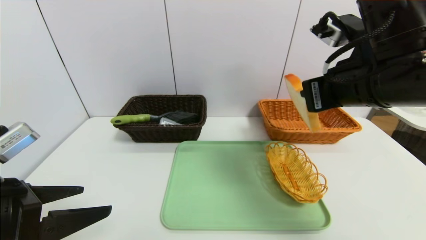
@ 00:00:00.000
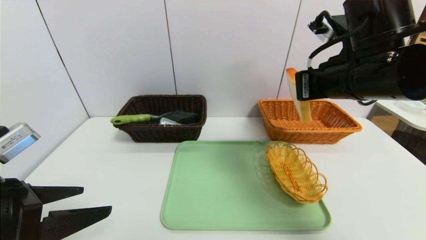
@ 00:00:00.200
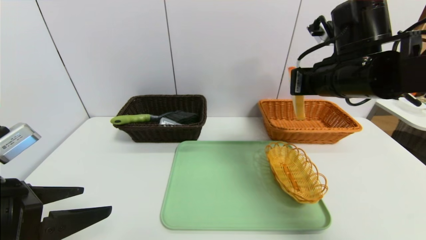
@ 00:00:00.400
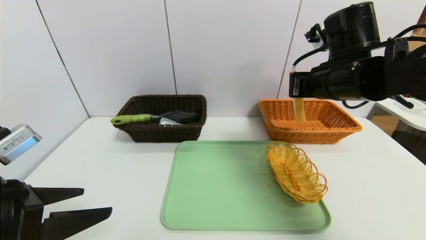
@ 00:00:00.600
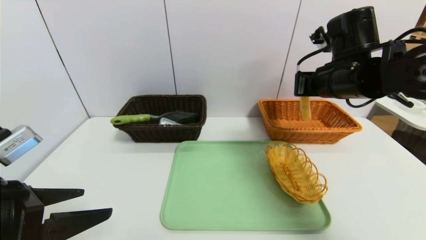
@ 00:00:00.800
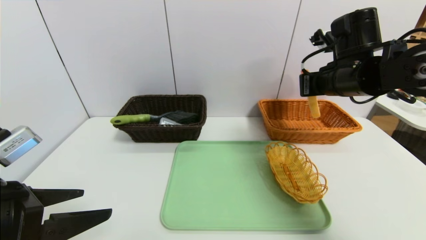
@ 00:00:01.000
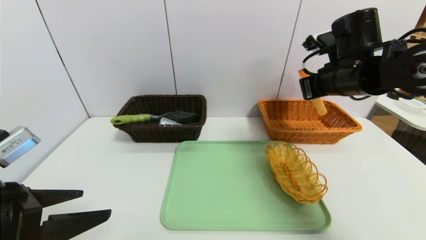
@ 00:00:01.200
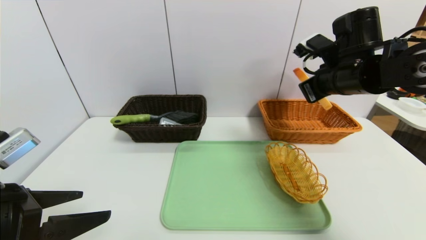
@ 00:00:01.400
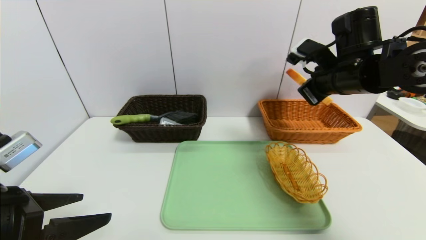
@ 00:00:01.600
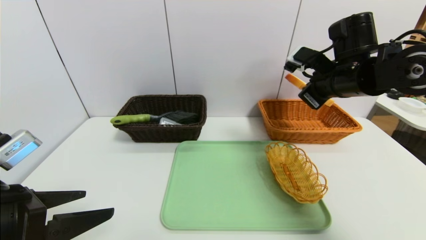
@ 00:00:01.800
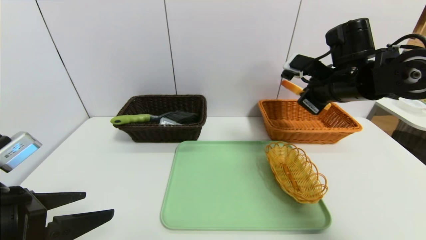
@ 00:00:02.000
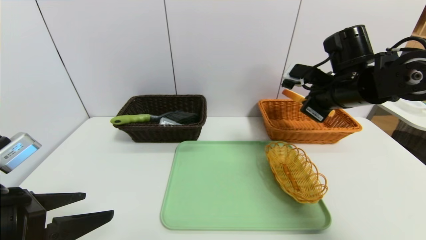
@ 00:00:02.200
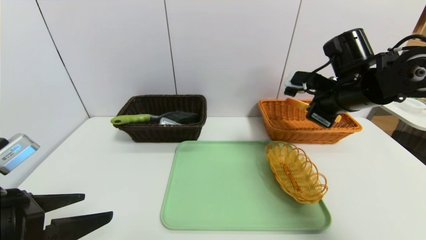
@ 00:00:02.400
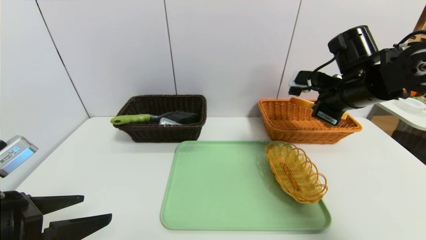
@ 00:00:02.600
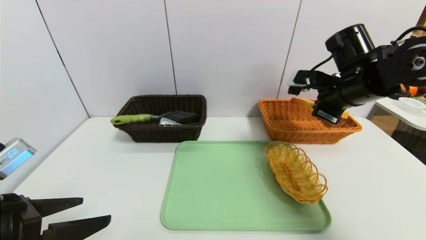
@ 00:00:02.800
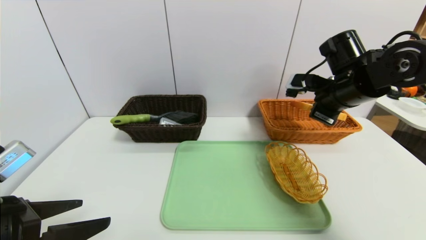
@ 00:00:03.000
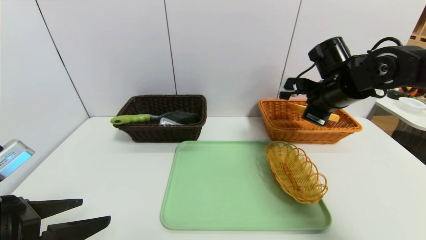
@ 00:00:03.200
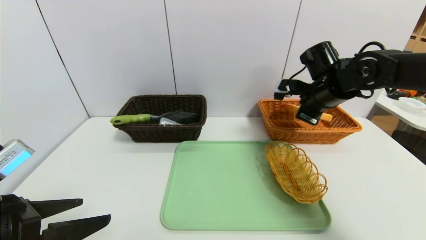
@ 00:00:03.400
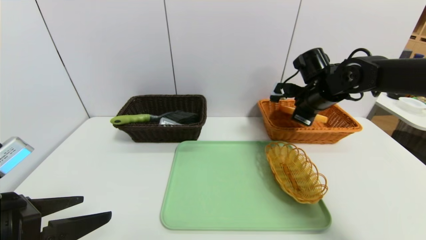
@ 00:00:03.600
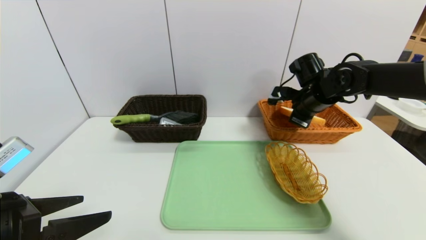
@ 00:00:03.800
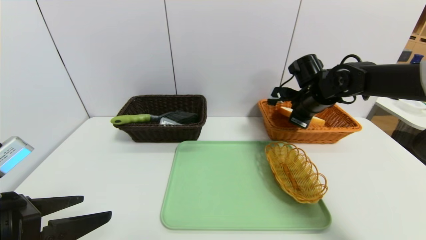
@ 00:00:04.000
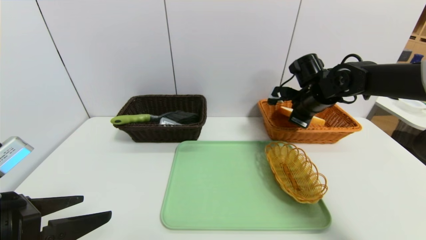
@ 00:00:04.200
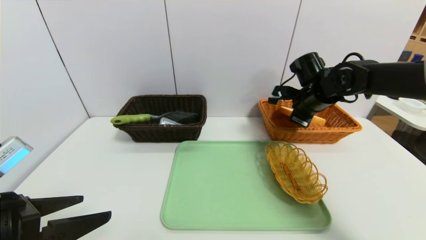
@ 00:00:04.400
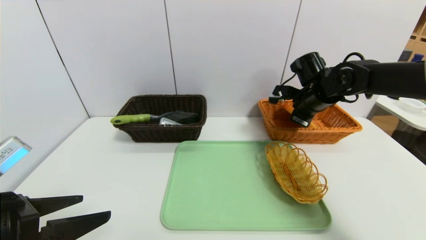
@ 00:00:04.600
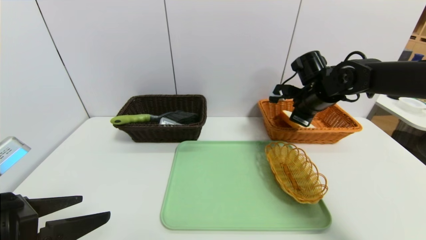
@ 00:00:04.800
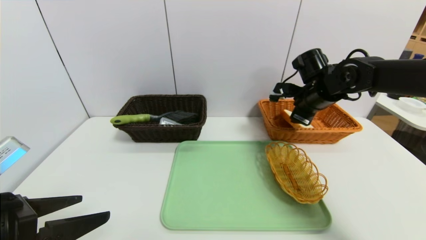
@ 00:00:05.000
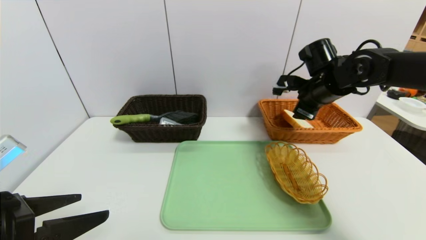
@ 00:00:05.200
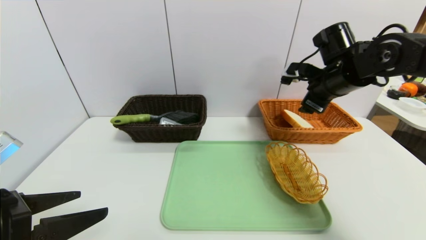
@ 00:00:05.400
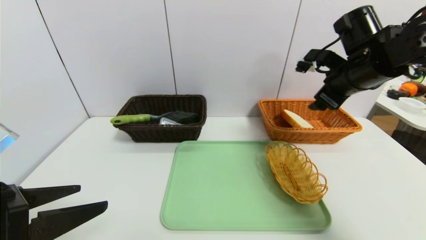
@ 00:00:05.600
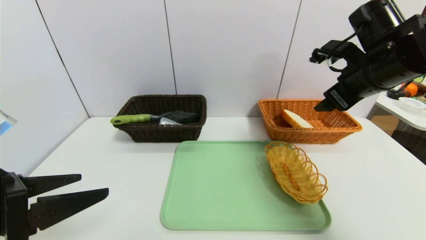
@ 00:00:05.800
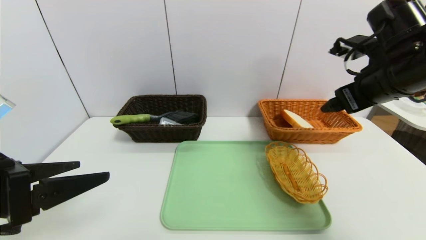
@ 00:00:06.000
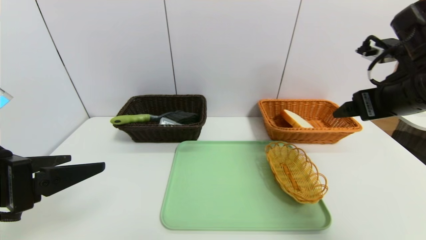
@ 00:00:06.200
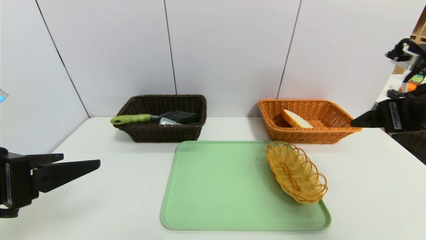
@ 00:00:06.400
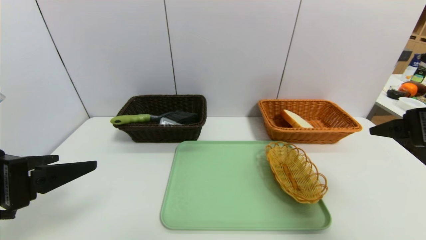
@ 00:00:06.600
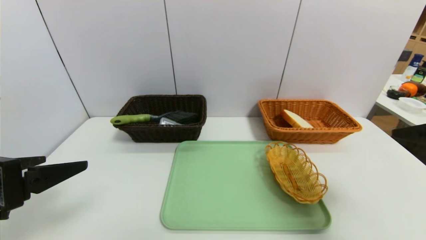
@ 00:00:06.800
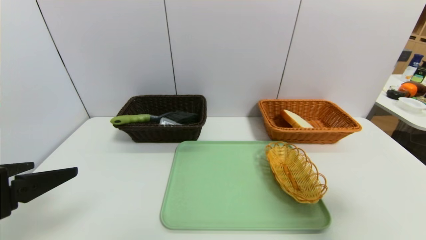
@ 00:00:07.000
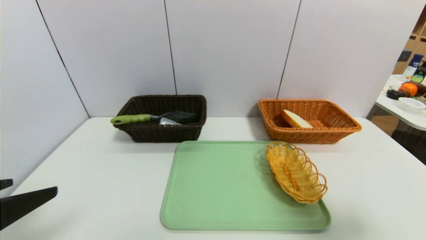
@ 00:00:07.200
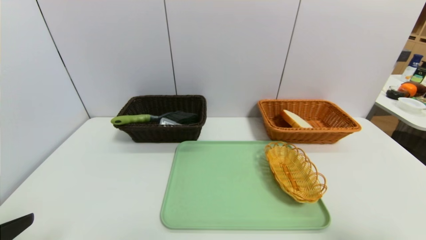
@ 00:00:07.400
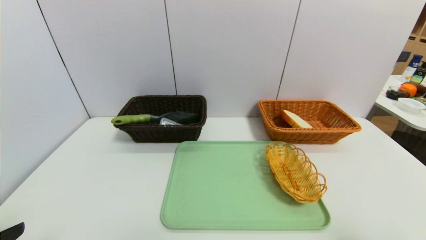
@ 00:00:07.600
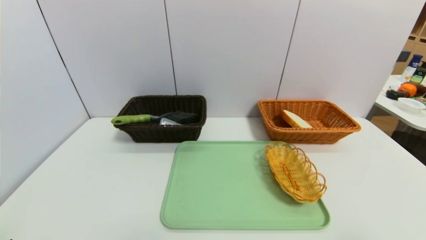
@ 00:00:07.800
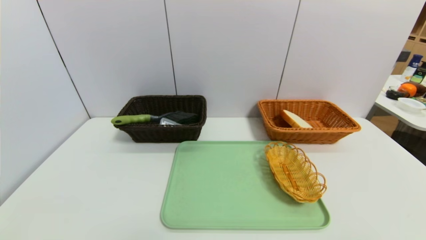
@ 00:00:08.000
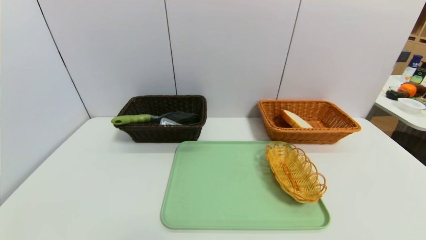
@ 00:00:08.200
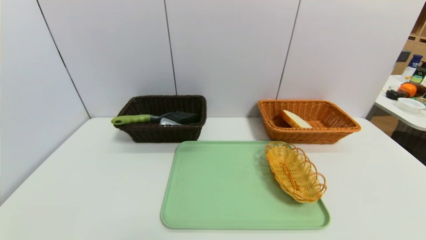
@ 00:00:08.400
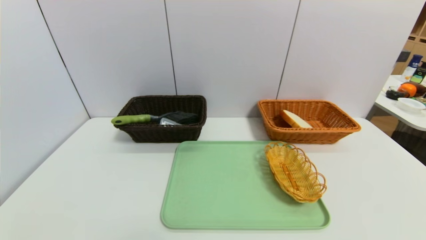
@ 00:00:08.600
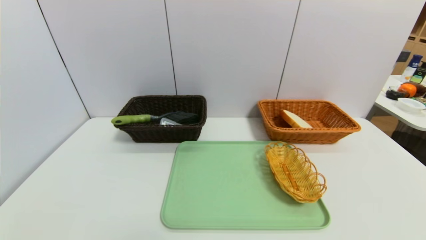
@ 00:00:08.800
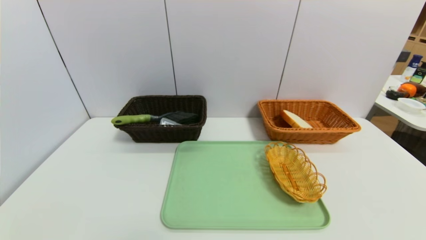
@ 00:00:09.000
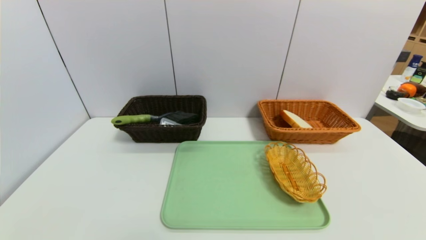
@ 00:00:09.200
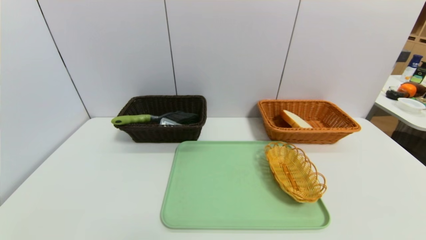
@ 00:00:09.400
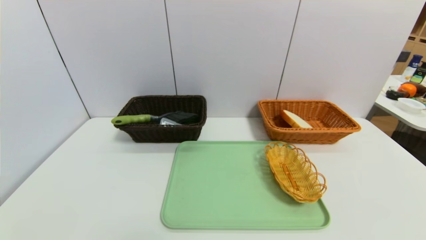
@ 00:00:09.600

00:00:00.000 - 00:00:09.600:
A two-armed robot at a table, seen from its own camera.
Task of the whole recording: place the food in the right basket with the right gripper, and place the non food items in the left basket with the left gripper.
Step, 00:00:00.000 - 00:00:05.800: Grasp the bread slice and put it in the right basket.
00:00:00.000 - 00:00:01.600: The right gripper travels forward by roughly 10 cm.
00:00:01.600 - 00:00:03.200: The right gripper shifts by some 5 cm.
00:00:03.200 - 00:00:04.800: The right gripper ends up roughly 5 cm from where it was, and opens up.
00:00:04.800 - 00:00:06.400: The left gripper is displaced upward by some 5 cm. Meanwhile the right gripper goes some 20 cm backward and upward, and opens.
00:00:06.400 - 00:00:08.000: The right gripper travels backward by approximately 25 cm. Meanwhile the left gripper moves backward and downward, roughly 15 cm.

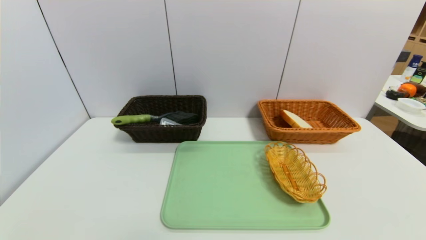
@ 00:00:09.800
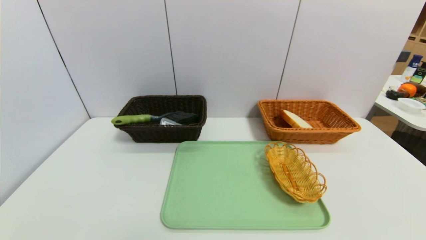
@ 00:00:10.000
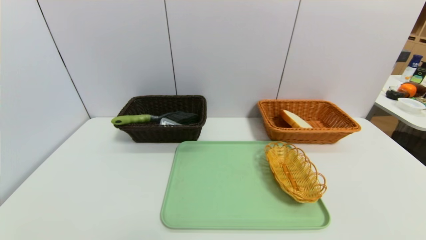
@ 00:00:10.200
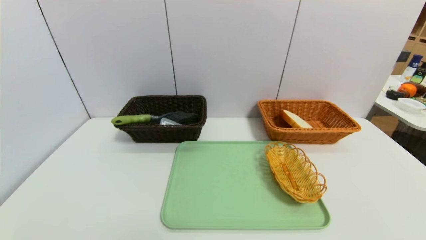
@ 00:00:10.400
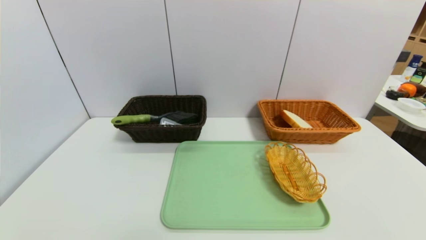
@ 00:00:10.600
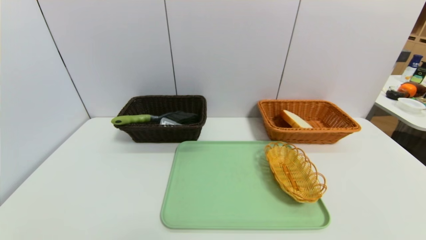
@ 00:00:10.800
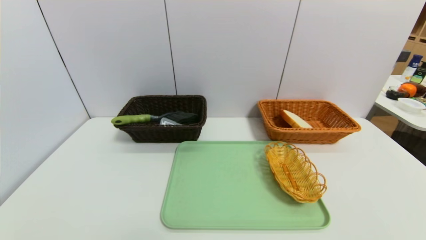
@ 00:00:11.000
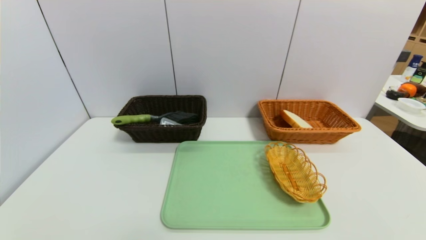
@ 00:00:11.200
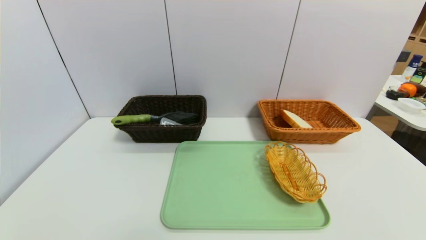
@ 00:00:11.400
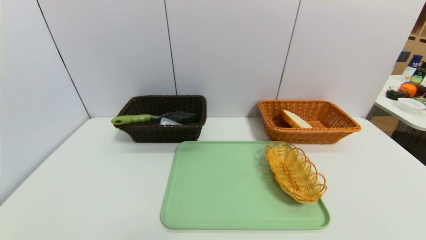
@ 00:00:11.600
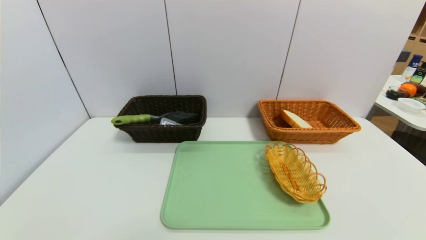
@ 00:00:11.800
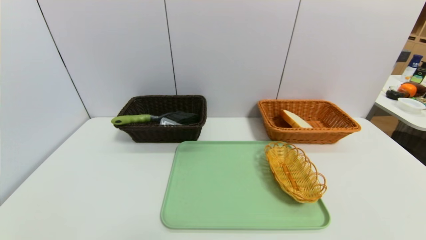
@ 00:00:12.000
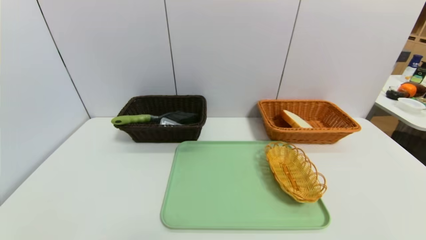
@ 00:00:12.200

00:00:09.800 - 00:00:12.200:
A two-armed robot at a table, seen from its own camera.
Task of the whole recording: place the food in the right basket with the right gripper, and place the non food items in the left basket with the left gripper.
00:00:11.000 - 00:00:12.200: Both grippers stay about where they are.
